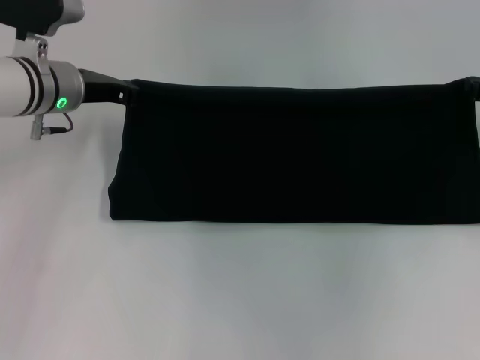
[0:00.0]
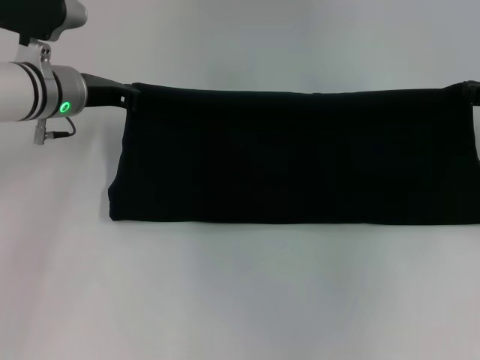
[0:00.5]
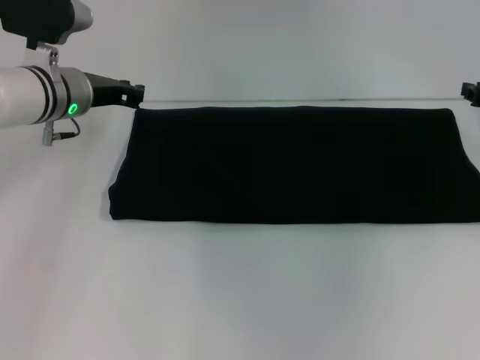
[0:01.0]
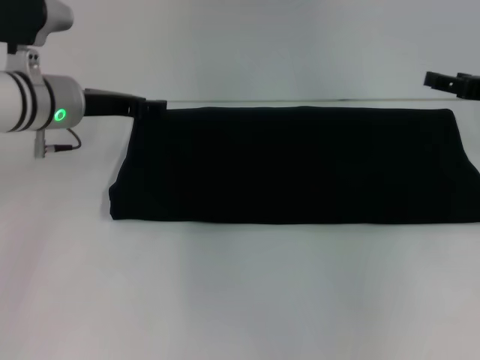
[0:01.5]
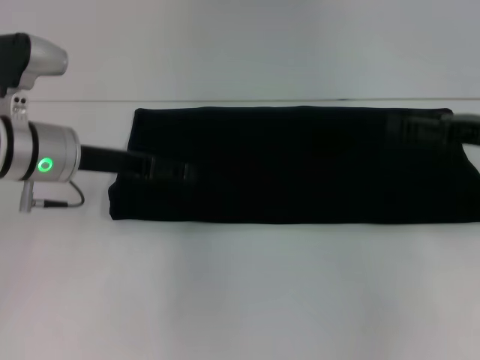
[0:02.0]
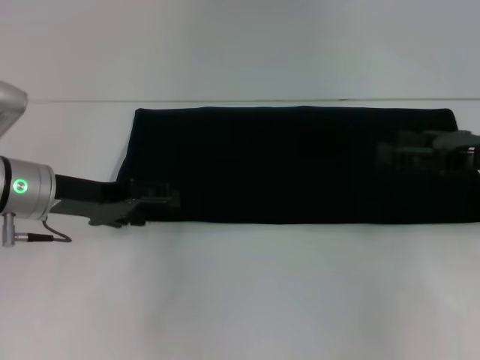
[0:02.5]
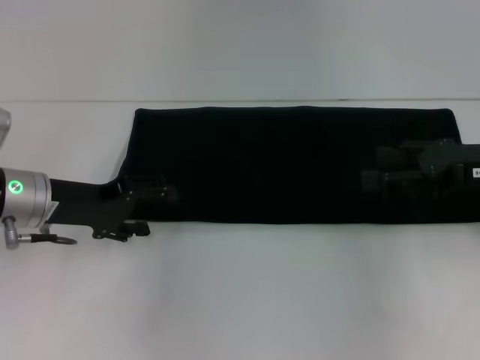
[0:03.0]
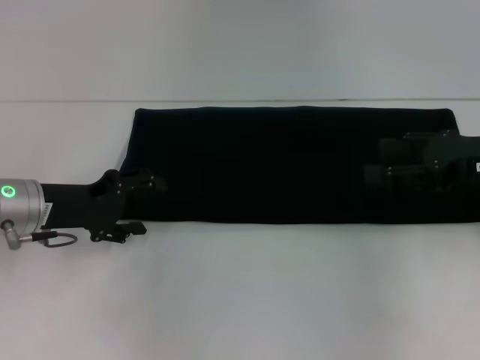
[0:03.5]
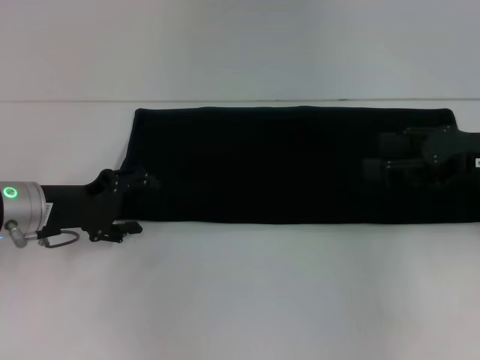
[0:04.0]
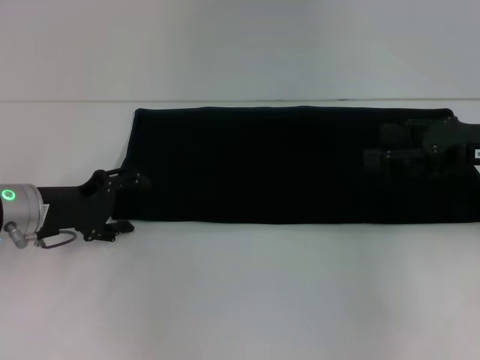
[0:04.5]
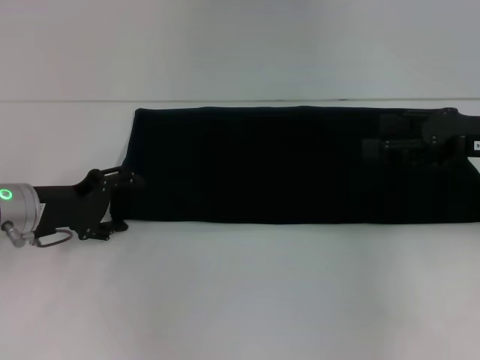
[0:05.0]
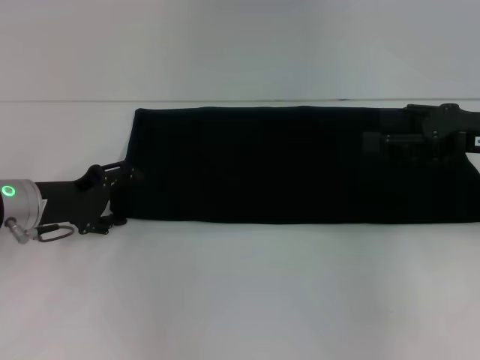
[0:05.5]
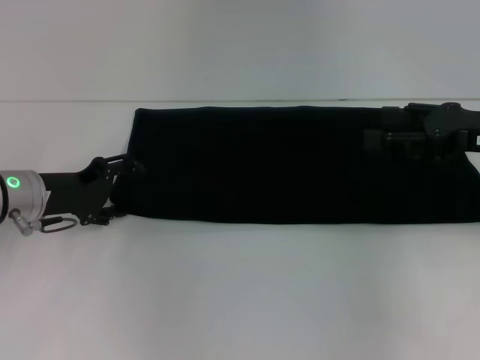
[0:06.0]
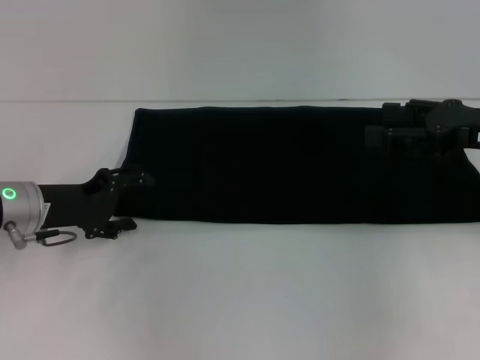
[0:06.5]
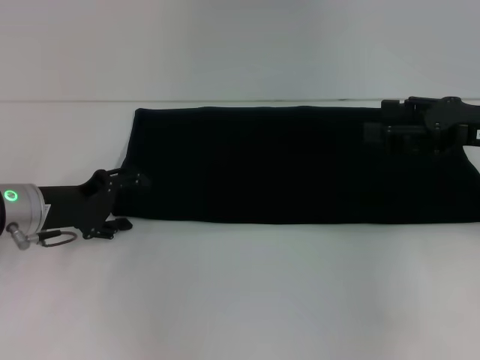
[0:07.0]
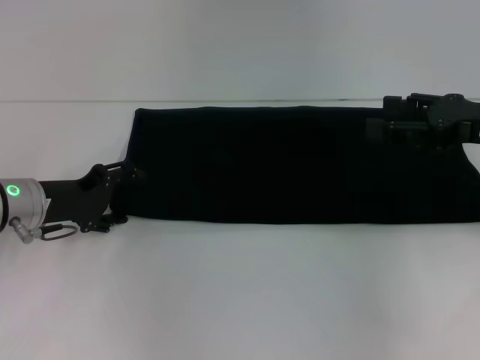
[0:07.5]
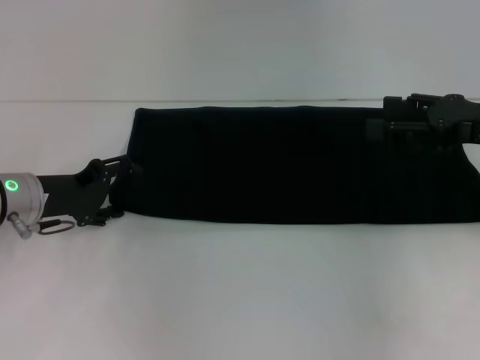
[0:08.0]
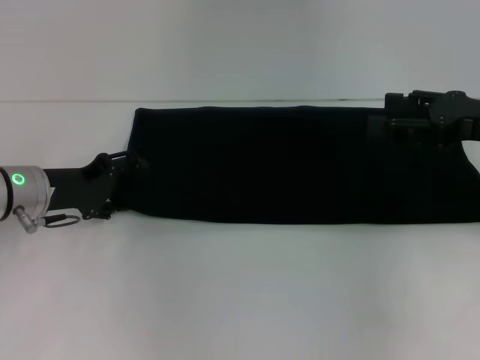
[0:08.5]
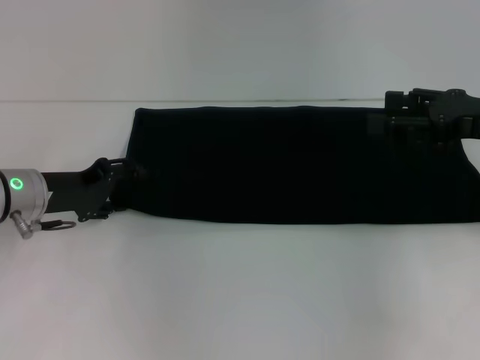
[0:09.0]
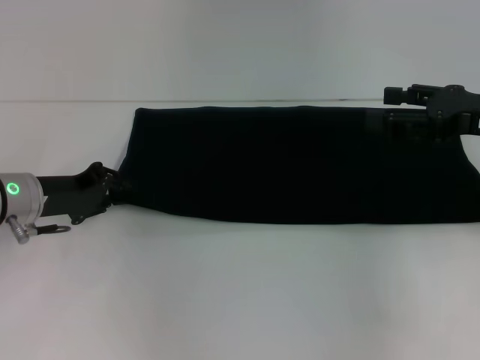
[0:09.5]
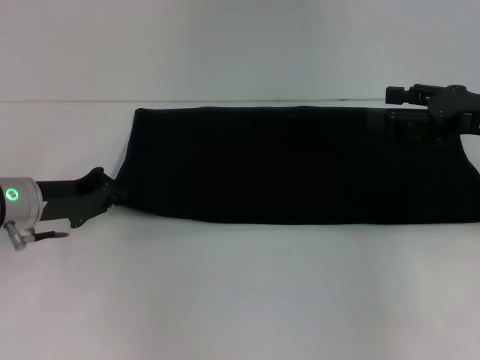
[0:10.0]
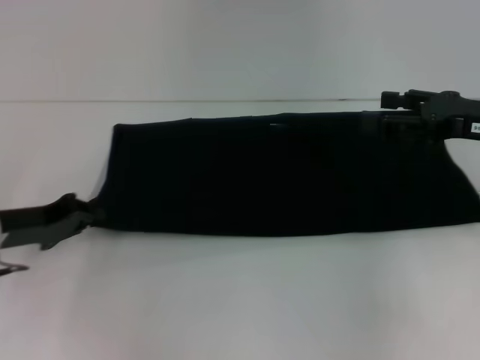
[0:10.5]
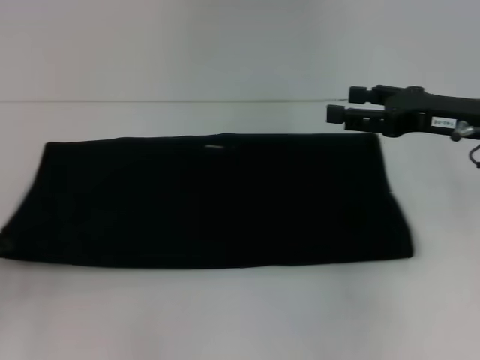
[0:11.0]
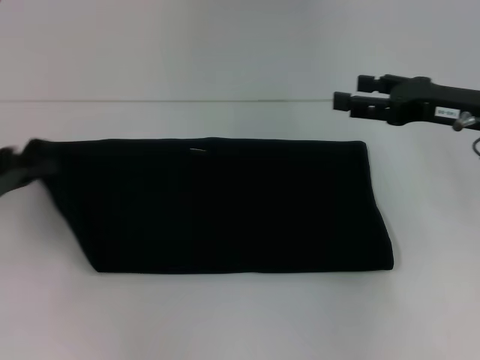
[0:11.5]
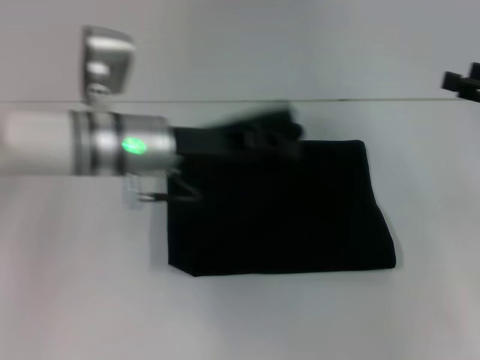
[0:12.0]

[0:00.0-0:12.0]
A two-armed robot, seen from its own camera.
0:00.0 to 0:02.0: Both grippers travel together backward, about 5 cm. The left gripper opens up. The right gripper opens its fingers.
0:02.0 to 0:04.0: The left gripper goes roughly 5 cm downward.
0:04.0 to 0:08.0: The grippers move only a little.
0:08.0 to 0:10.0: The left gripper closes up.
0:10.0 to 0:12.0: The right gripper travels to the right by some 5 cm. Meanwhile the left gripper heads to the right and upward, covering roughly 15 cm.

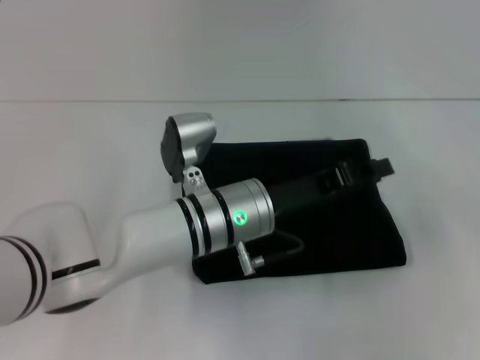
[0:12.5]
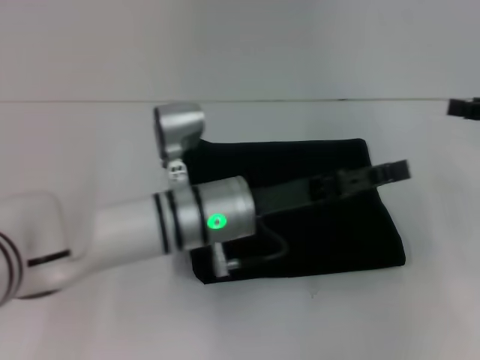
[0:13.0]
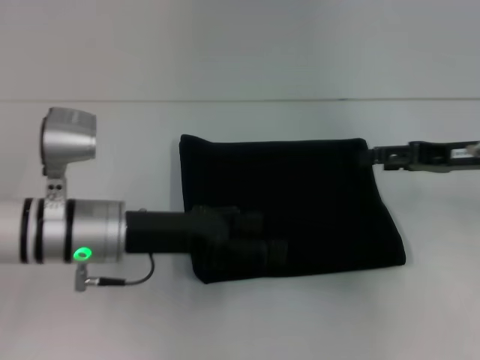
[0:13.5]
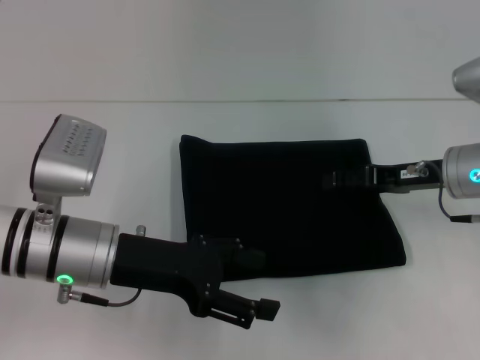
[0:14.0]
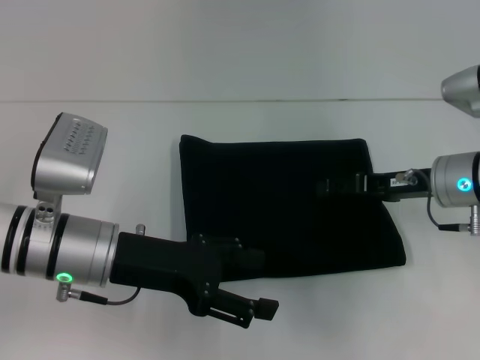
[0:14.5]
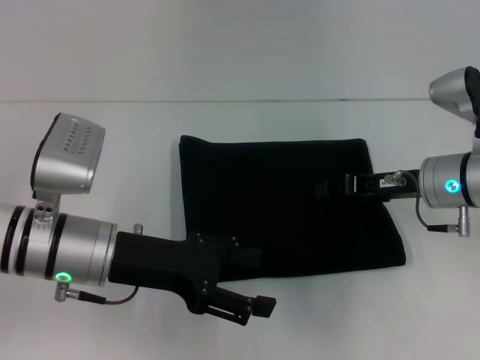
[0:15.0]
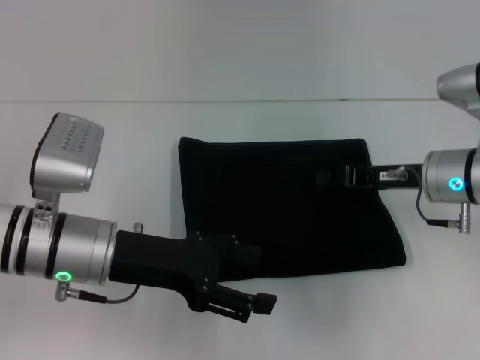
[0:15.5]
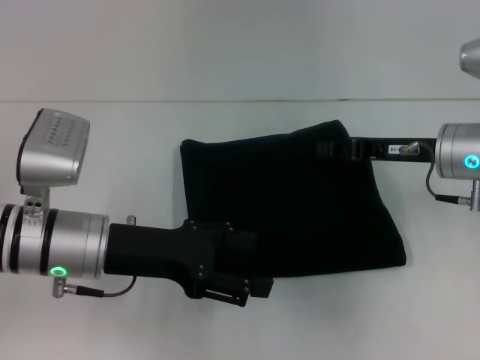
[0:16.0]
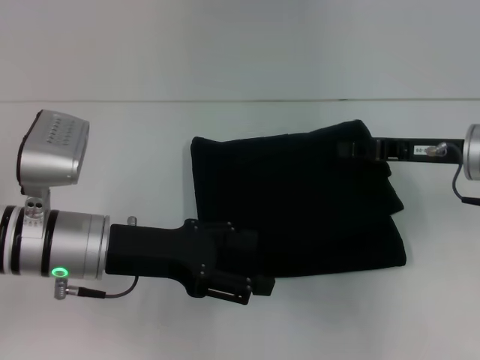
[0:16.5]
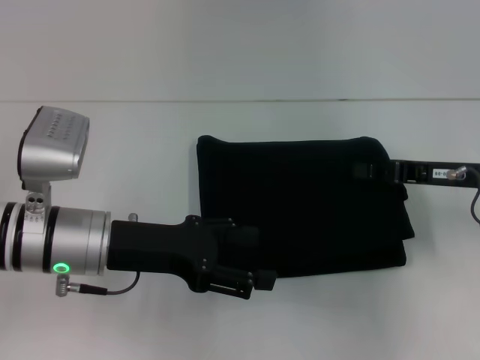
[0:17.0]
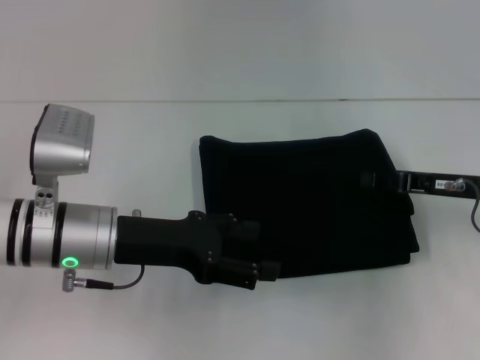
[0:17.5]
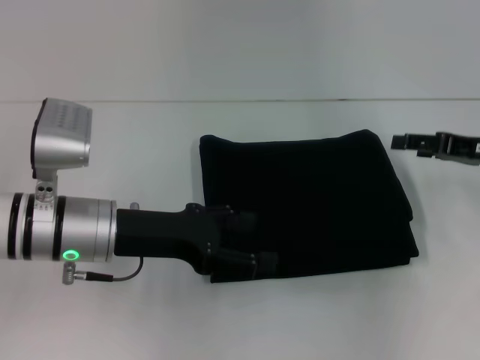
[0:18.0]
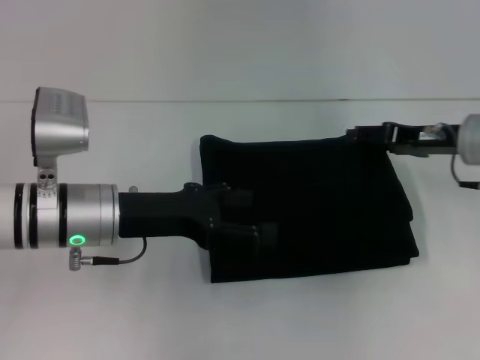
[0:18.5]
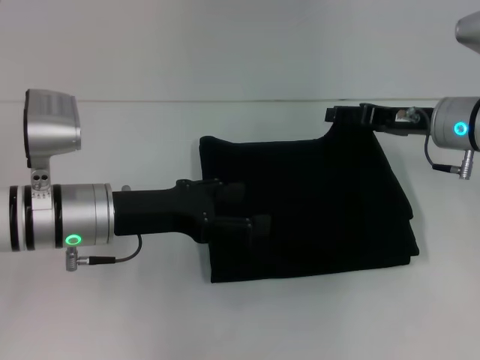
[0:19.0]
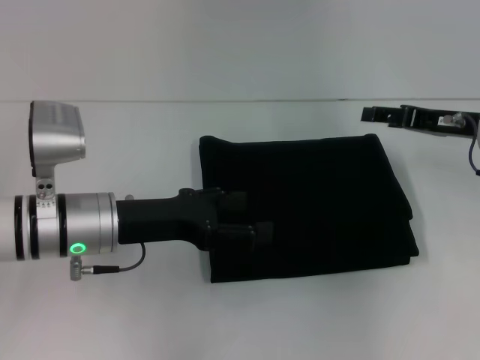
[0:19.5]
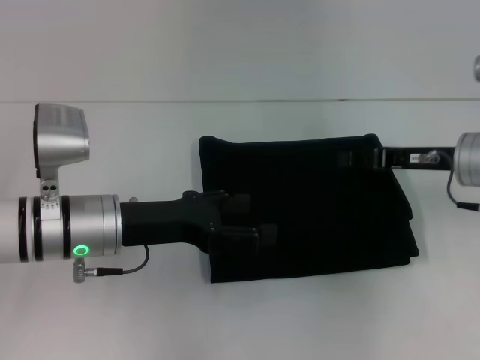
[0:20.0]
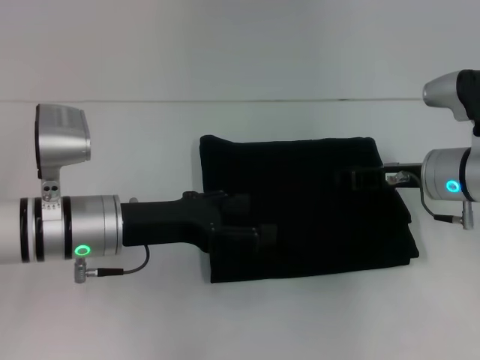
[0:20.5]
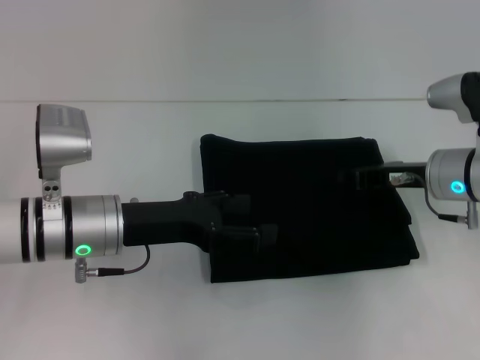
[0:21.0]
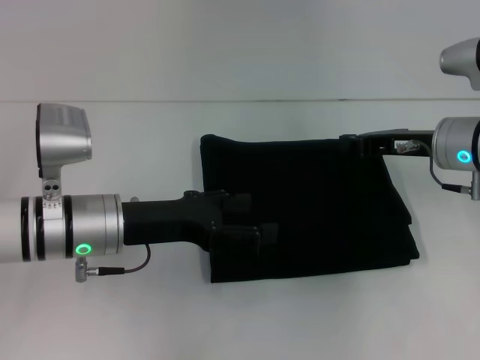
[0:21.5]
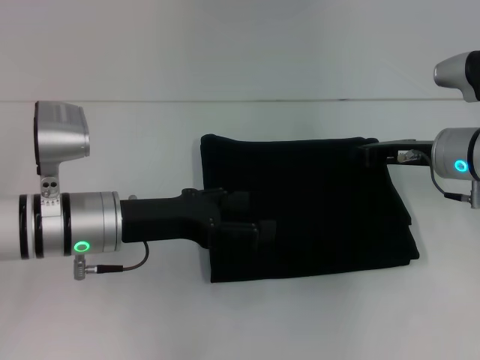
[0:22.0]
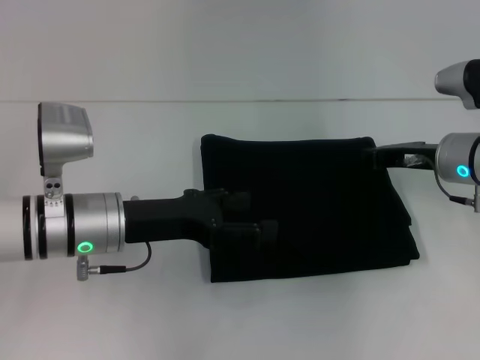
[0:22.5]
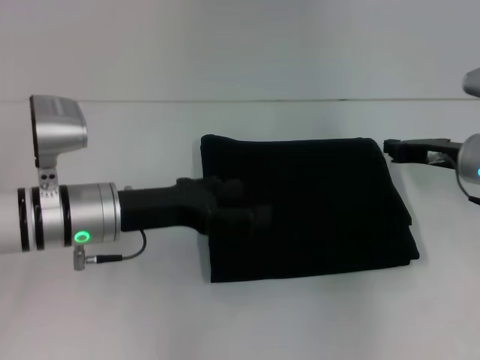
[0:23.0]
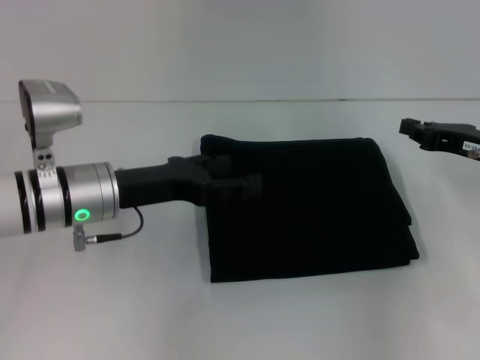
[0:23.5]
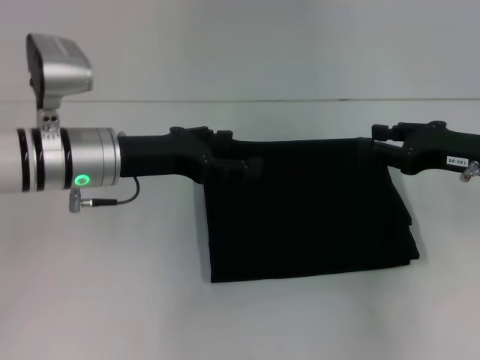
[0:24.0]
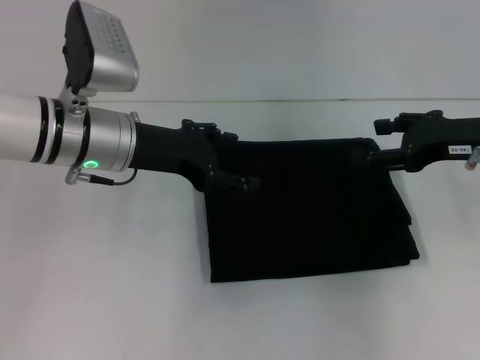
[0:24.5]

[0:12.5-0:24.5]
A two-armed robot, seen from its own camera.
0:12.5 to 0:14.5: The right gripper heads to the left and downward, covering about 20 cm, while the left gripper heads to the left, covering approximately 15 cm, and opens.
0:14.5 to 0:16.5: The right gripper closes.
0:16.5 to 0:18.5: The right gripper opens up.
0:18.5 to 0:20.5: The right gripper closes.
0:20.5 to 0:22.5: The grippers stay close to where they were, moving slightly.
0:22.5 to 0:24.5: The right gripper travels upward by roughly 5 cm, and opens up; the left gripper shifts some 10 cm upward and forward.

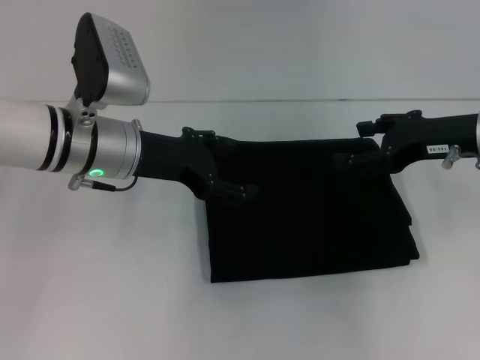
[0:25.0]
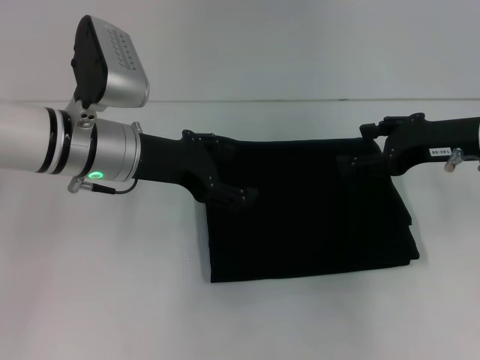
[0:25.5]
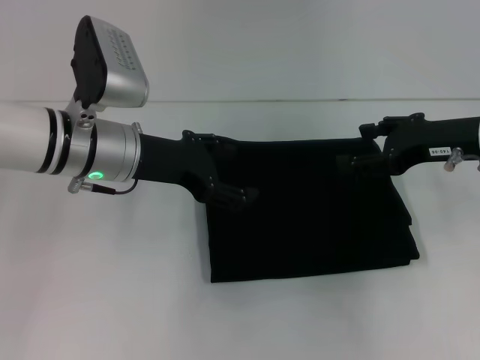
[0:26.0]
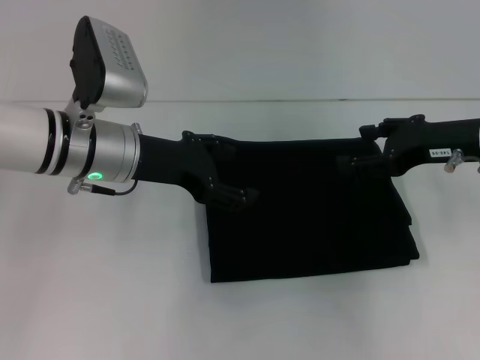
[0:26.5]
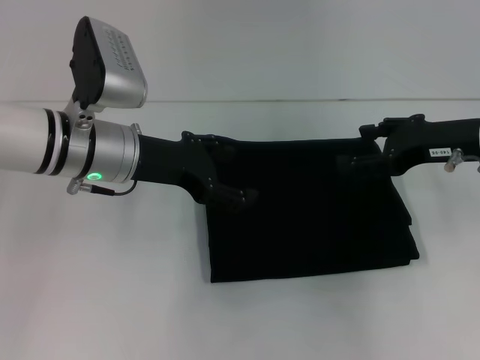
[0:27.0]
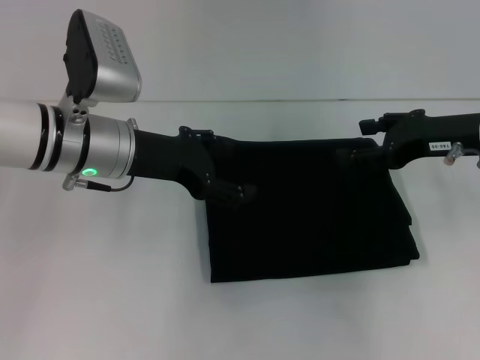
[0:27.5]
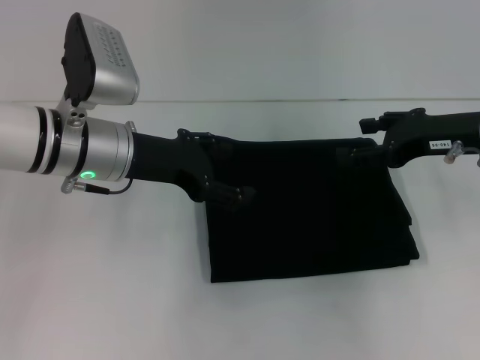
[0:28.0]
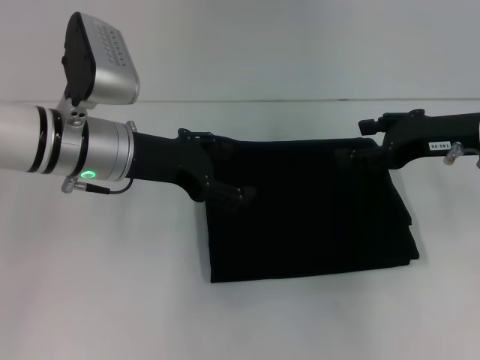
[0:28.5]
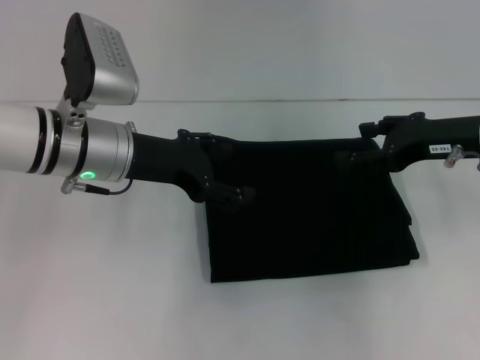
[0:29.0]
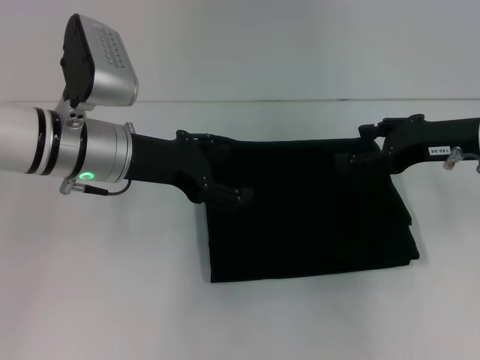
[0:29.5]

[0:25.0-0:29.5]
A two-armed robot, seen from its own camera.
0:25.0 to 0:29.5: Both grippers stay put.
